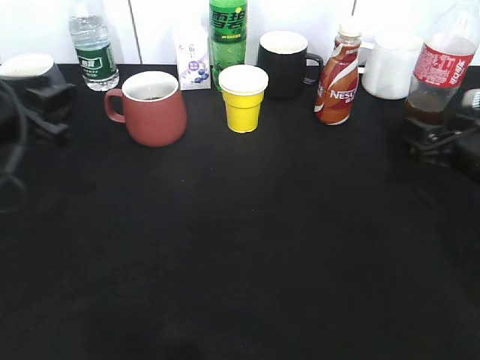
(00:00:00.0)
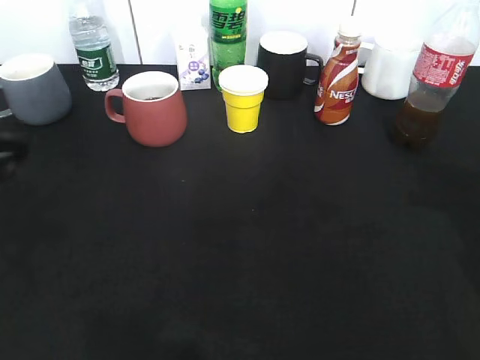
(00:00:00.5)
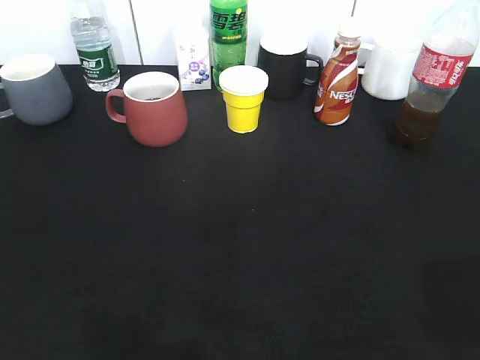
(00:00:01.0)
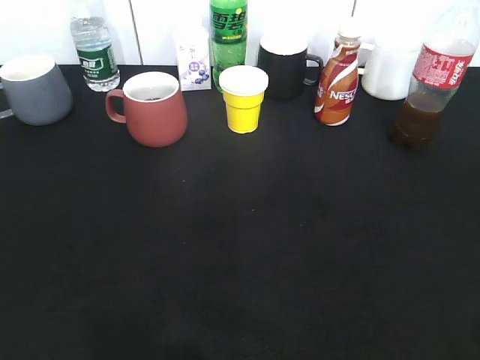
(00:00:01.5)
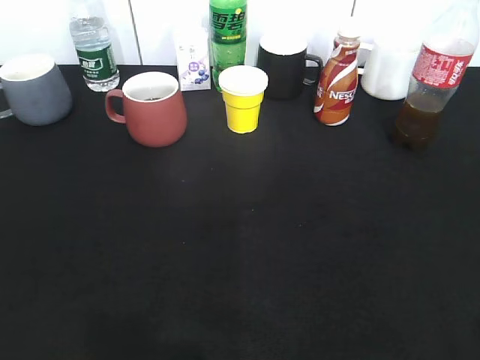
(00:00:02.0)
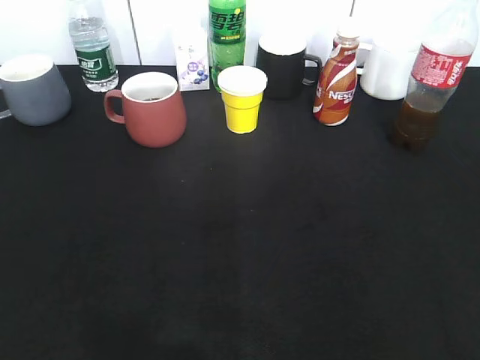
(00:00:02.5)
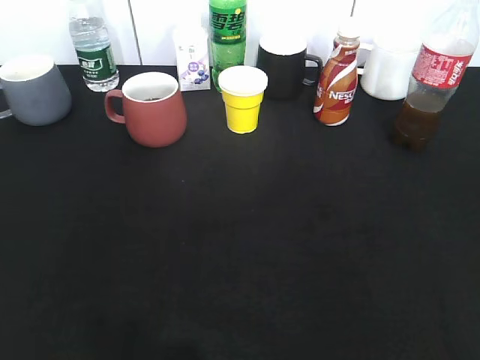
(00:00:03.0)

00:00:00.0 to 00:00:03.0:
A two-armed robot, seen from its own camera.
00:00:00.0 to 00:00:01.5: The right gripper travels backward and upward by approximately 35 cm. Meanwhile the left gripper shifts roughly 25 cm backward.

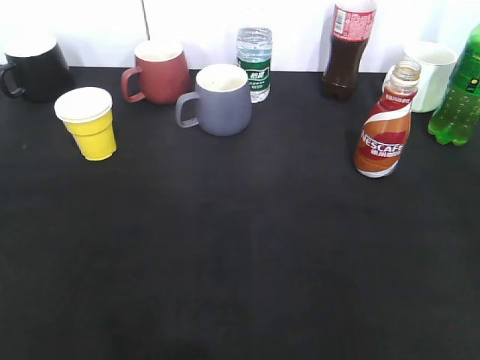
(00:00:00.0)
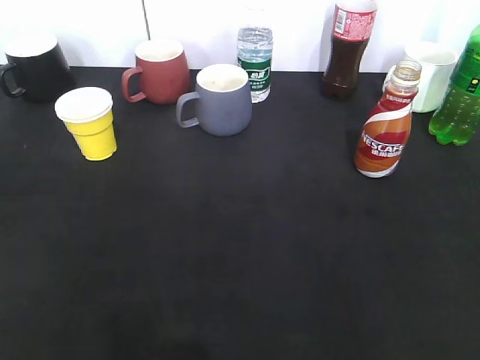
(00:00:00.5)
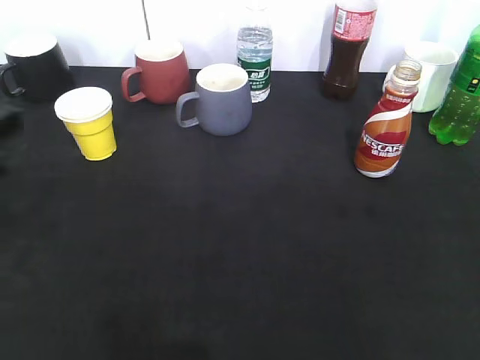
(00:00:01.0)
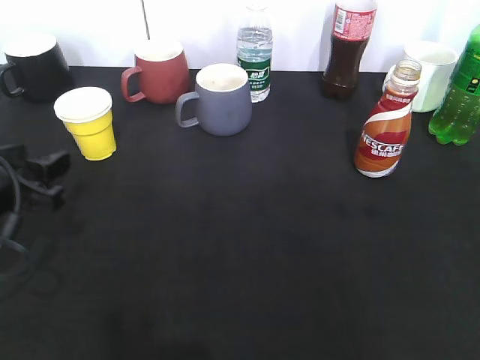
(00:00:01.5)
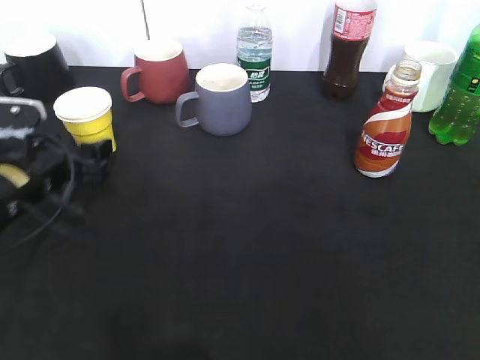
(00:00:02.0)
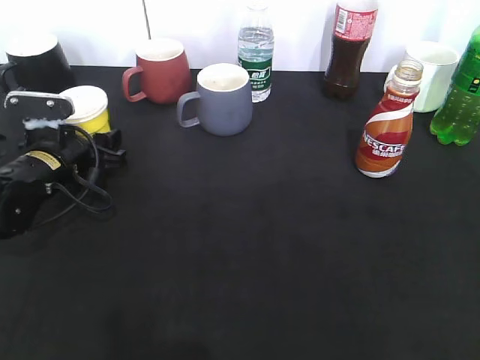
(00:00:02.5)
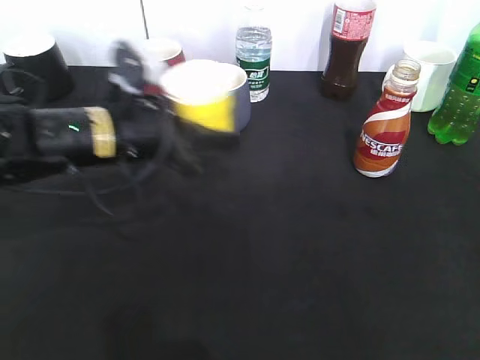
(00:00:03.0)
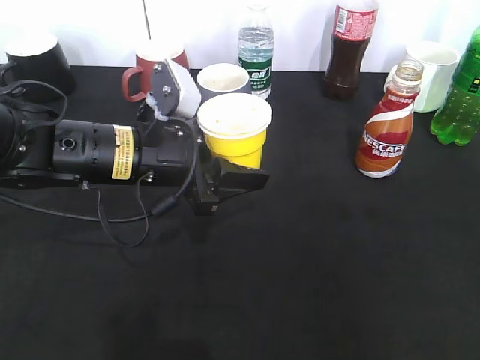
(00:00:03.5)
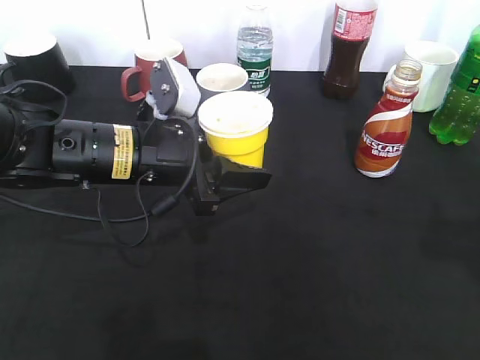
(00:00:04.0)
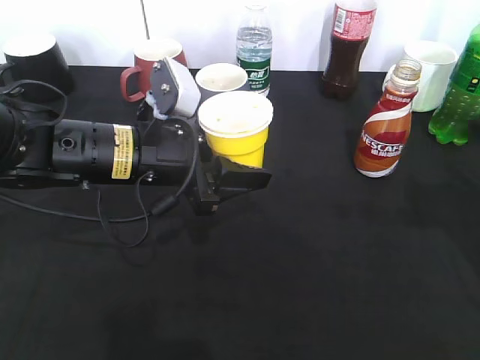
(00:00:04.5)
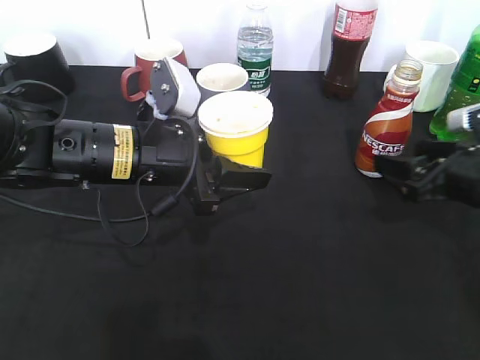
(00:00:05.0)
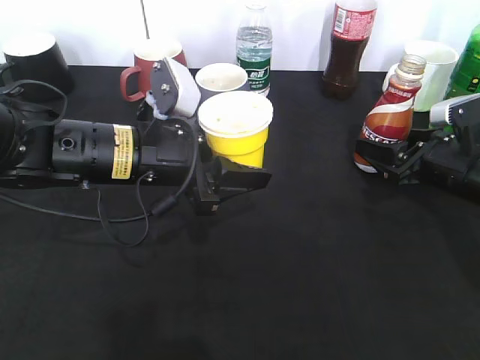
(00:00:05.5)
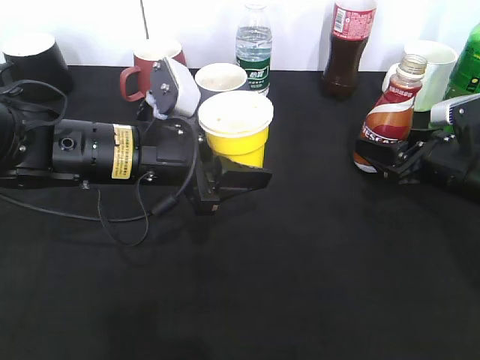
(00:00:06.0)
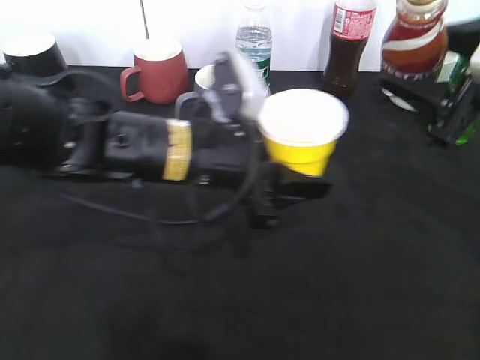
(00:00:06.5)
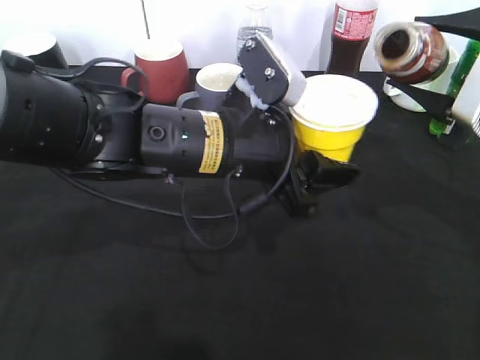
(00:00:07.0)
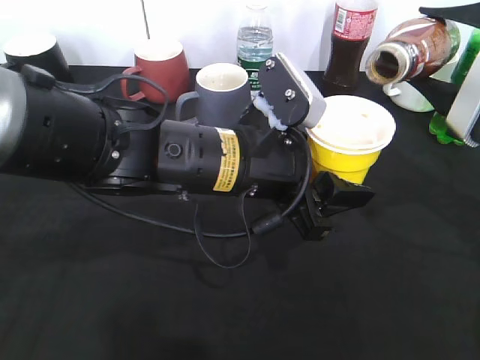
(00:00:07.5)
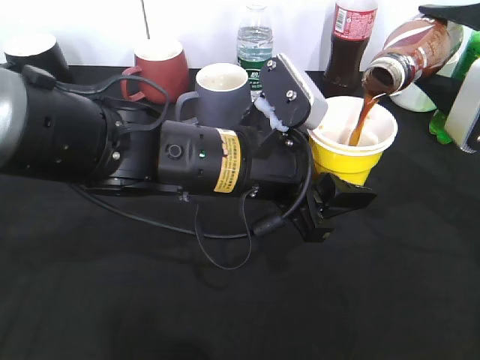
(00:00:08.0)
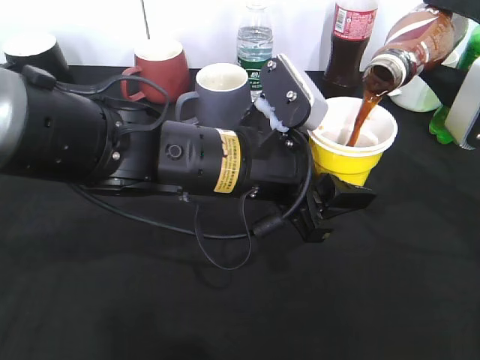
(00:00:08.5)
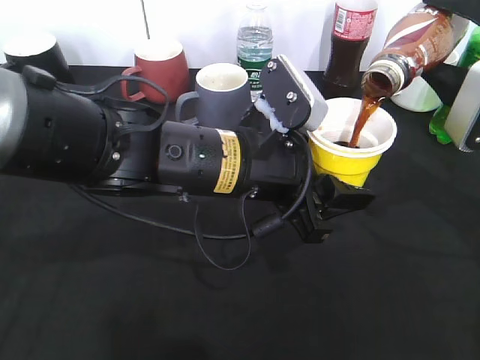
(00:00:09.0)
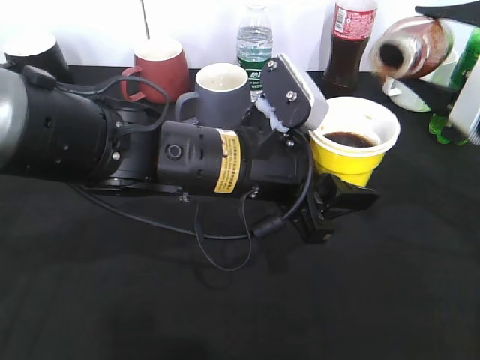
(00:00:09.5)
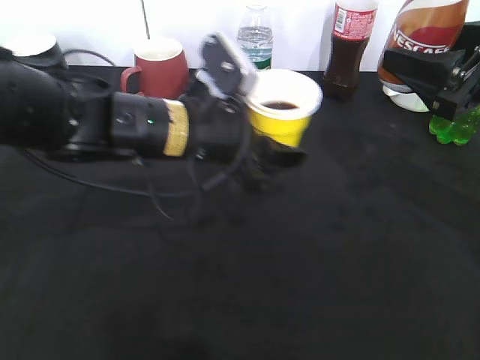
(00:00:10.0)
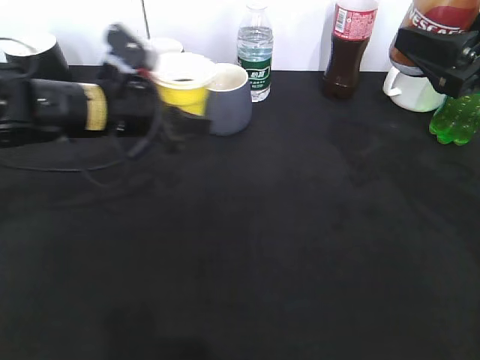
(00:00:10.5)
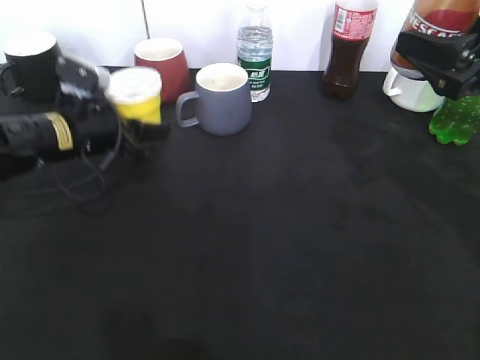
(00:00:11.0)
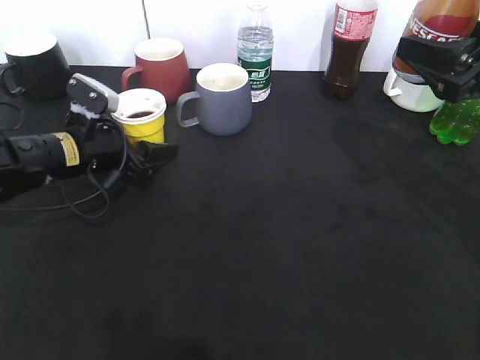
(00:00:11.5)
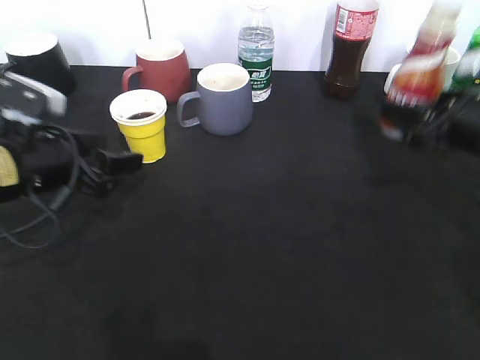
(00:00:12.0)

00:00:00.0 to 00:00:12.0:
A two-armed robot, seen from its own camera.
Step, 00:00:01.0 to 00:00:02.0: Grasp the yellow paper cup with left gripper.
Step, 00:00:02.5 to 00:00:04.0: Lift the yellow paper cup with left gripper.
Step, 00:00:04.5 to 00:00:05.5: Grasp the bottle with coffee with right gripper.
Step, 00:00:06.0 to 00:00:09.5: Pour the coffee from bottle to cup with right gripper.
Step, 00:00:10.0 to 00:00:11.0: Place the yellow paper cup on the table with left gripper.
00:00:00.0 to 00:00:02.0: The left gripper travels forward and downward by some 35 cm, and opens its fingers.
00:00:02.0 to 00:00:04.0: The right gripper moves forward, approximately 10 cm. The left gripper heads to the right, covering approximately 15 cm, and closes.
00:00:04.0 to 00:00:06.0: The right gripper travels downward and forward by about 30 cm, and opens, then closes once more.
00:00:06.0 to 00:00:08.0: The left gripper travels to the right by approximately 10 cm. The right gripper travels upward by roughly 15 cm.
00:00:08.0 to 00:00:10.0: The left gripper moves forward and to the left, approximately 10 cm.
00:00:10.0 to 00:00:12.0: The left gripper goes about 15 cm to the left, and opens its fingers, while the right gripper is displaced downward by approximately 10 cm.

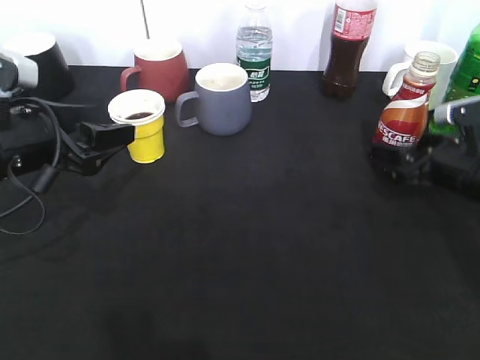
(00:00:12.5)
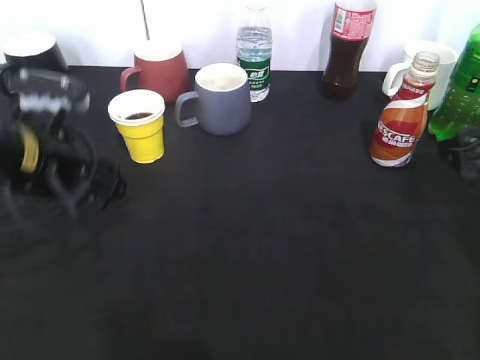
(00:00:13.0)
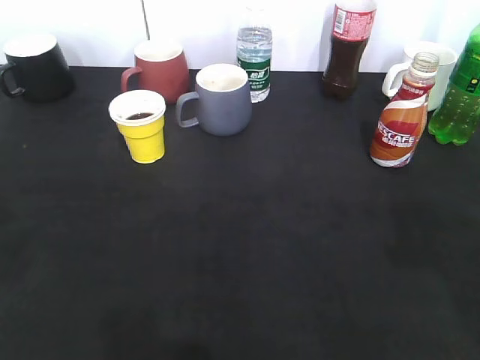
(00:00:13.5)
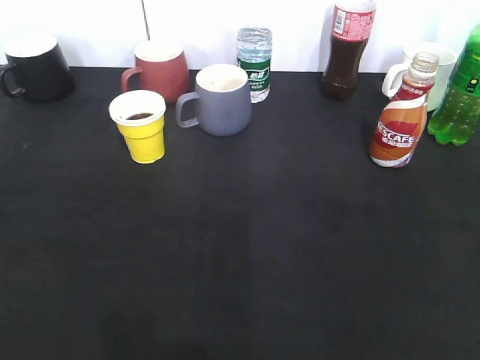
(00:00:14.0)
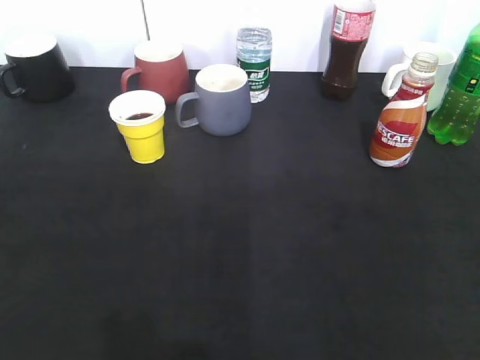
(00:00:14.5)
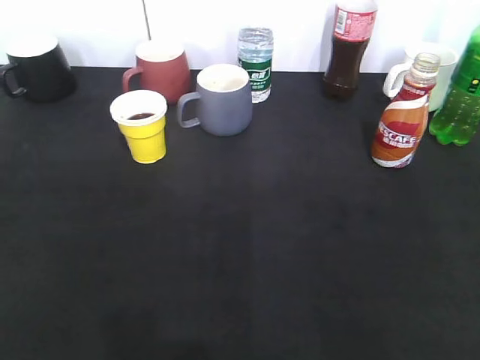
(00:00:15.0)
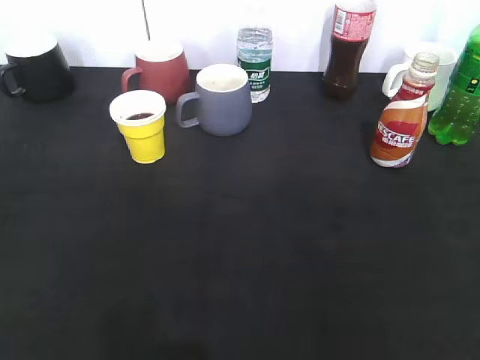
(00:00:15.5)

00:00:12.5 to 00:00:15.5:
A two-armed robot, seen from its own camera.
00:00:12.5 to 00:00:14.0: The right gripper shifts about 35 cm backward and upward, and closes up. The left gripper moves backward, roughly 30 cm, and closes up.

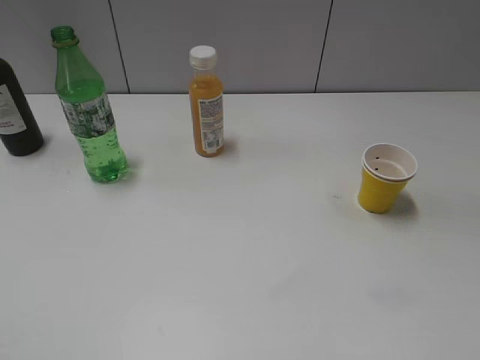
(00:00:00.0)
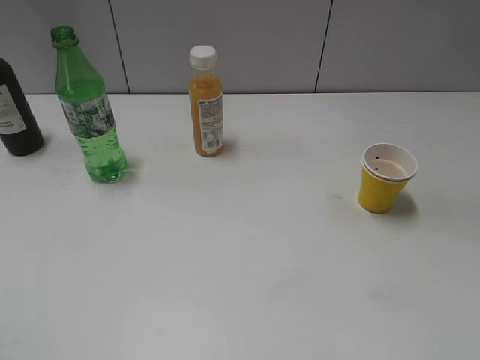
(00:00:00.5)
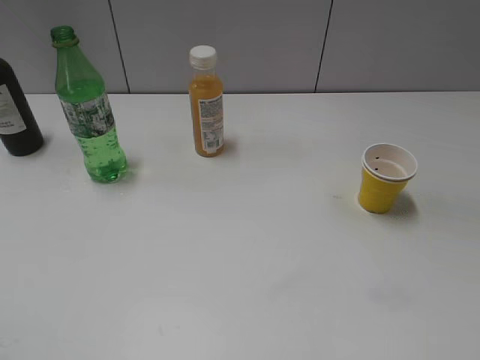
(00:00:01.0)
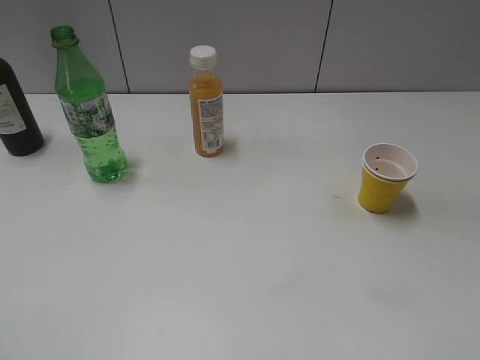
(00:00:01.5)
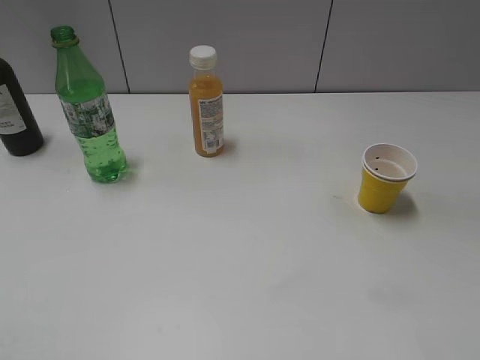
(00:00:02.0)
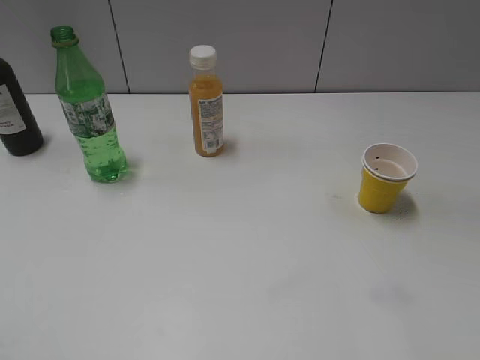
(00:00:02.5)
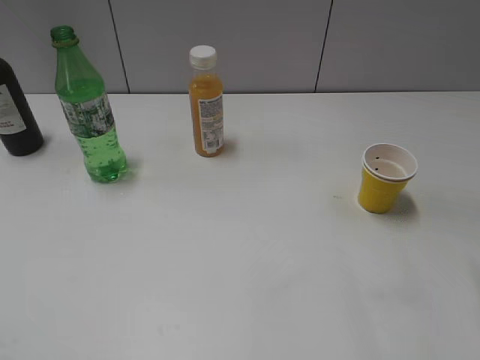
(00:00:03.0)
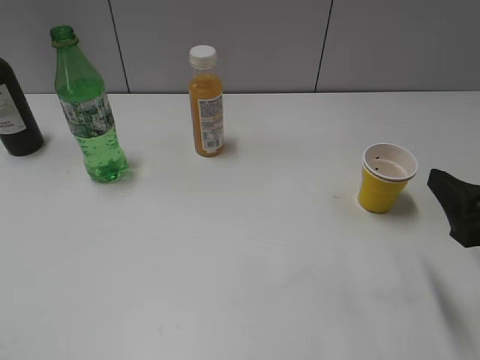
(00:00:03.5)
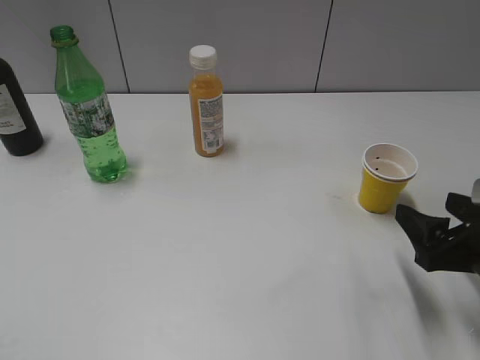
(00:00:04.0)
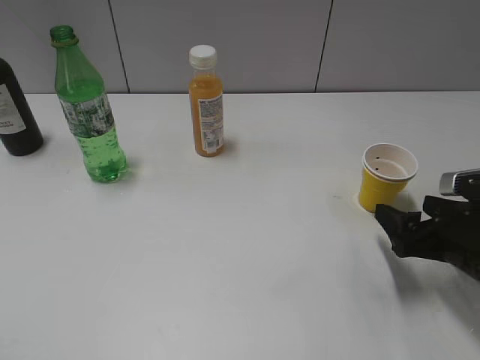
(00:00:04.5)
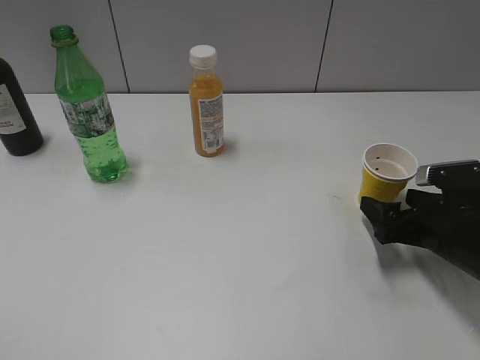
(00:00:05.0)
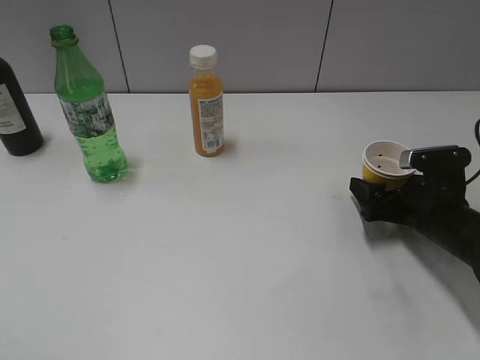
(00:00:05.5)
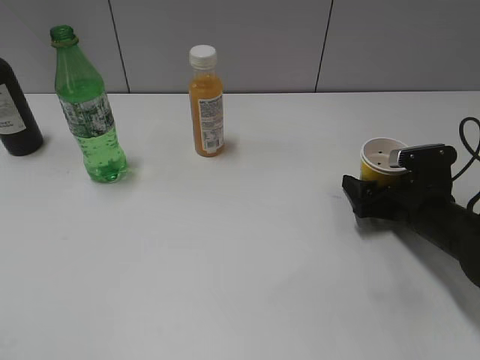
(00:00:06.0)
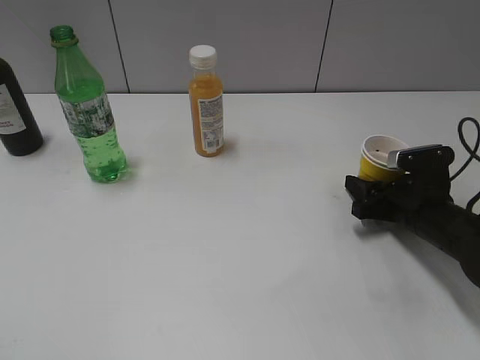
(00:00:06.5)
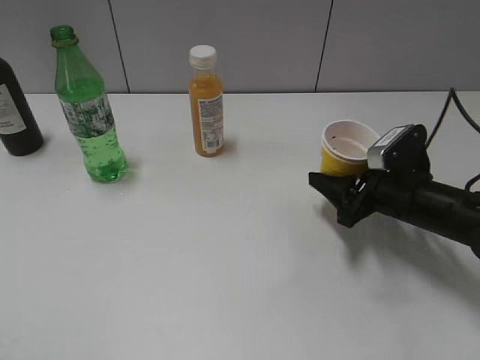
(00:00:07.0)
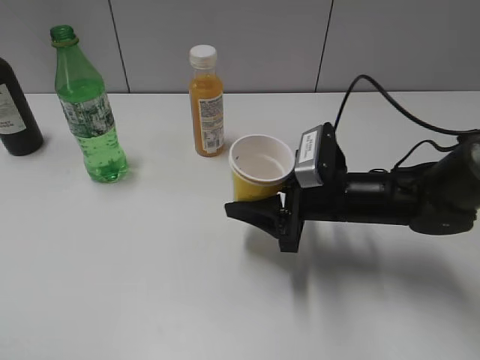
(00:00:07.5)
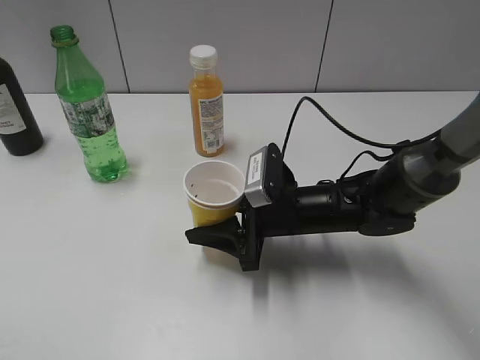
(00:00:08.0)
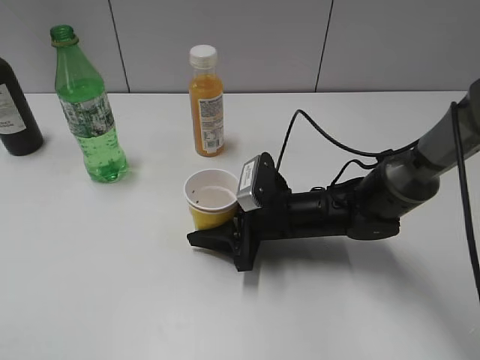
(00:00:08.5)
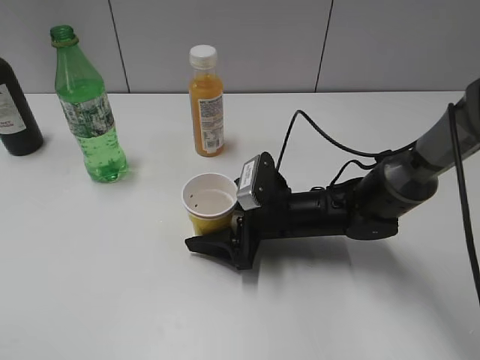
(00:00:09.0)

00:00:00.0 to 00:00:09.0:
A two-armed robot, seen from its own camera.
Step, 00:00:01.0 to 00:00:06.5: Grasp the yellow paper cup with right gripper.
00:00:02.0 to 00:00:04.5: The right gripper goes about 30 cm downward and forward.
00:00:04.5 to 00:00:07.0: The right gripper moves forward, about 10 cm, and closes.
00:00:07.0 to 00:00:09.0: The right gripper goes some 15 cm to the left, and opens its fingers.
